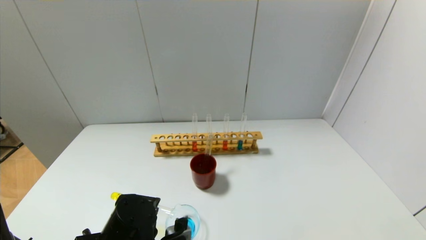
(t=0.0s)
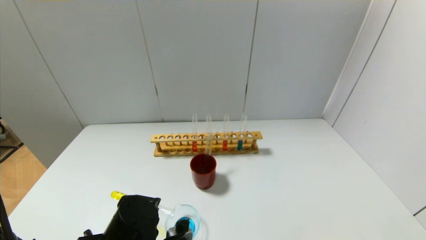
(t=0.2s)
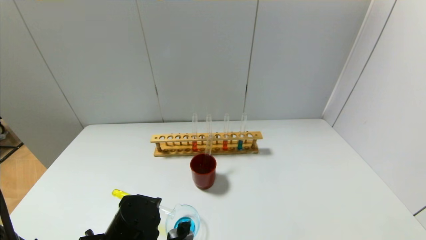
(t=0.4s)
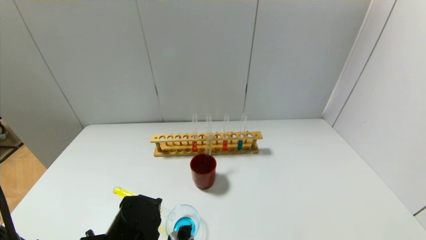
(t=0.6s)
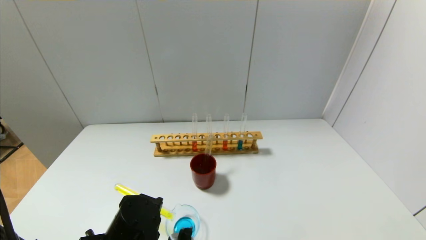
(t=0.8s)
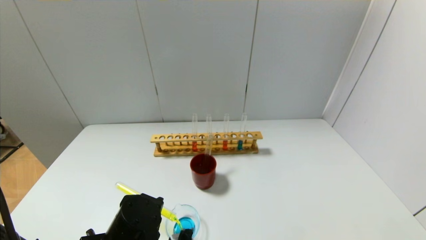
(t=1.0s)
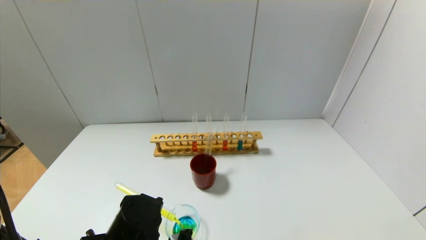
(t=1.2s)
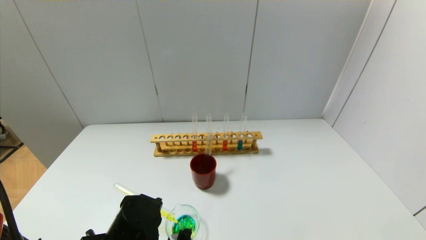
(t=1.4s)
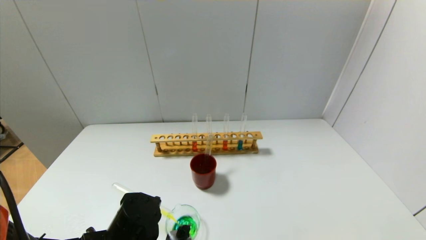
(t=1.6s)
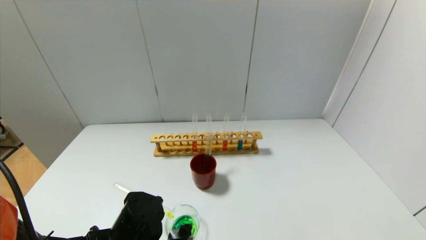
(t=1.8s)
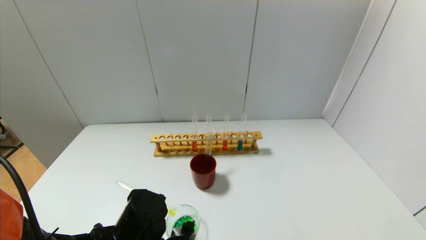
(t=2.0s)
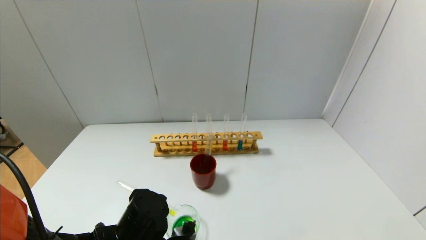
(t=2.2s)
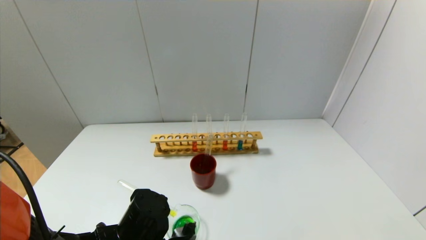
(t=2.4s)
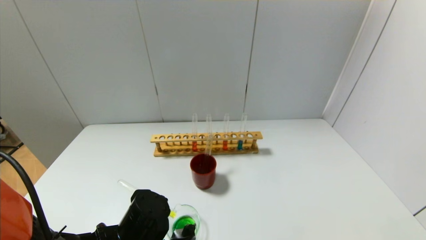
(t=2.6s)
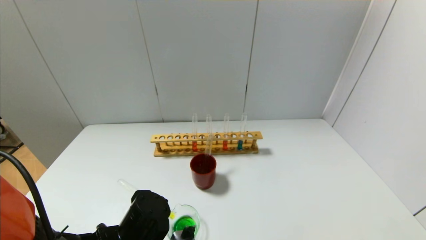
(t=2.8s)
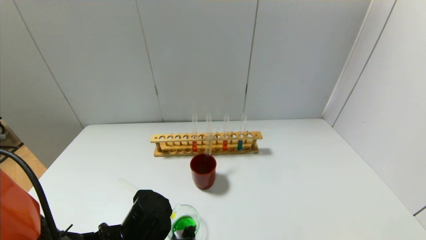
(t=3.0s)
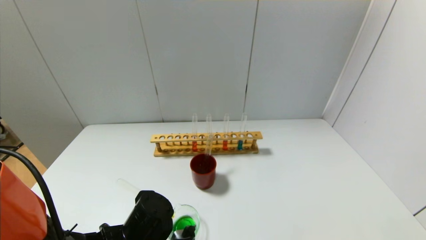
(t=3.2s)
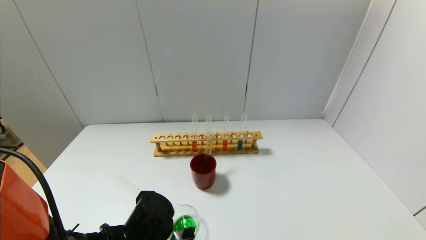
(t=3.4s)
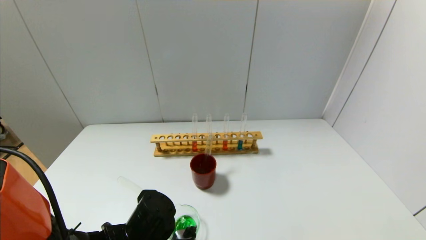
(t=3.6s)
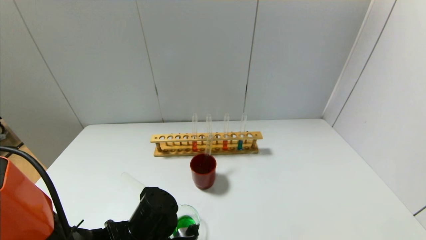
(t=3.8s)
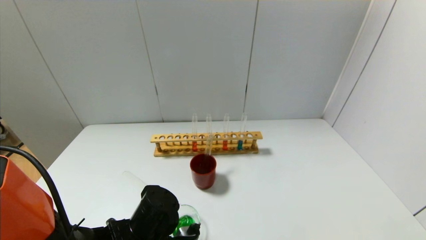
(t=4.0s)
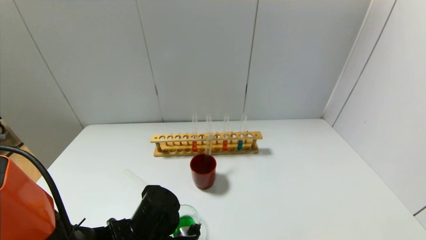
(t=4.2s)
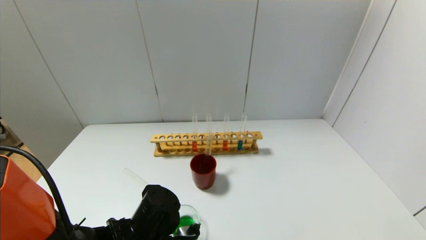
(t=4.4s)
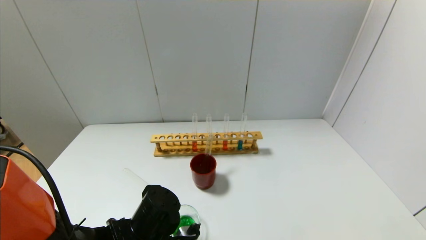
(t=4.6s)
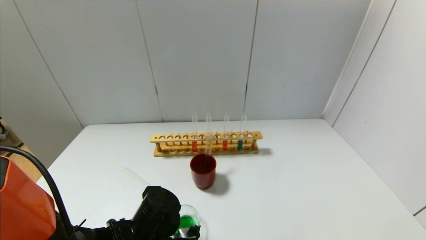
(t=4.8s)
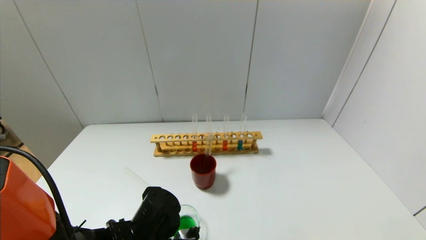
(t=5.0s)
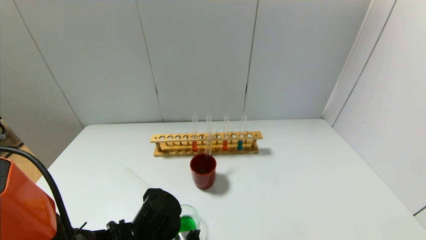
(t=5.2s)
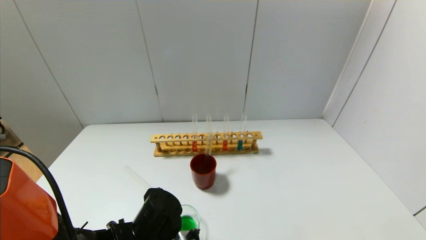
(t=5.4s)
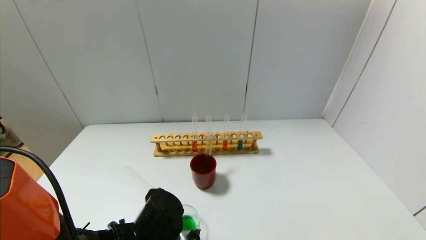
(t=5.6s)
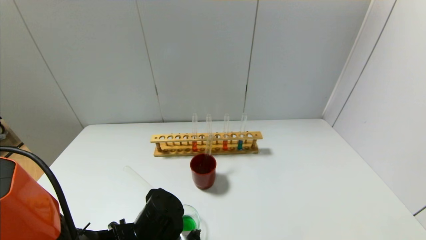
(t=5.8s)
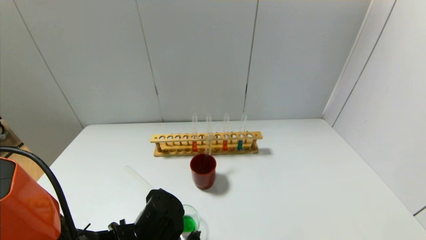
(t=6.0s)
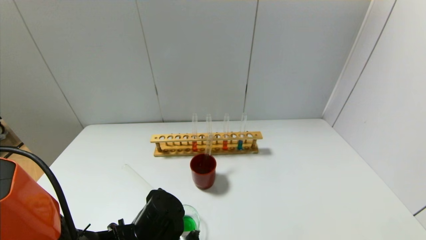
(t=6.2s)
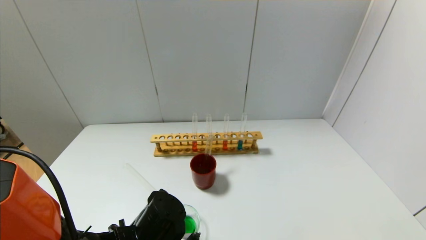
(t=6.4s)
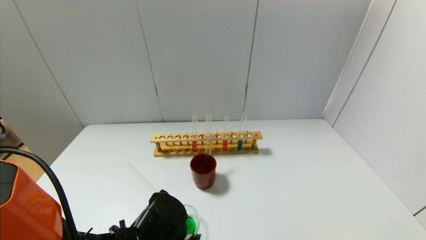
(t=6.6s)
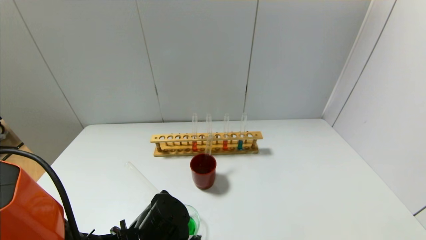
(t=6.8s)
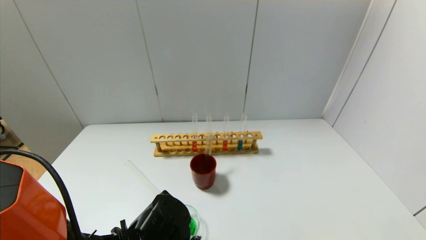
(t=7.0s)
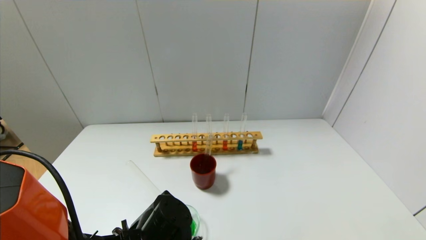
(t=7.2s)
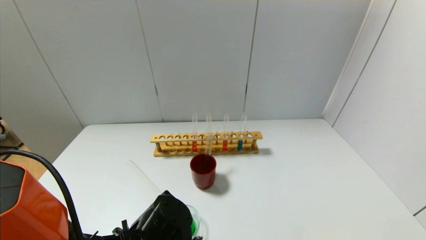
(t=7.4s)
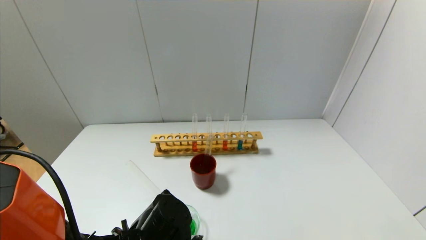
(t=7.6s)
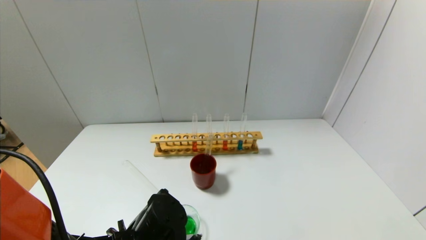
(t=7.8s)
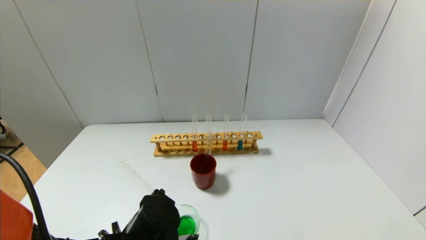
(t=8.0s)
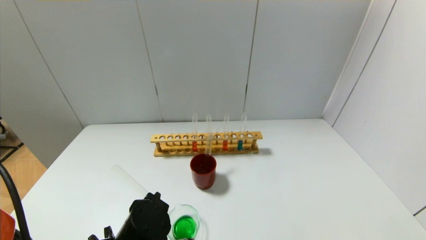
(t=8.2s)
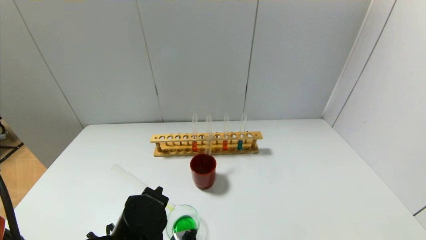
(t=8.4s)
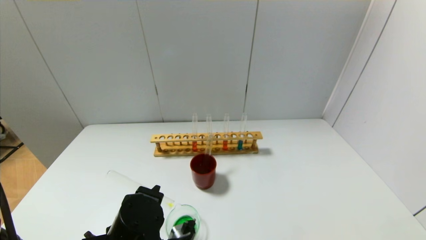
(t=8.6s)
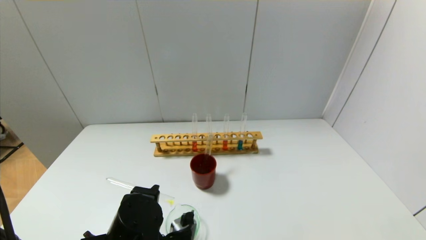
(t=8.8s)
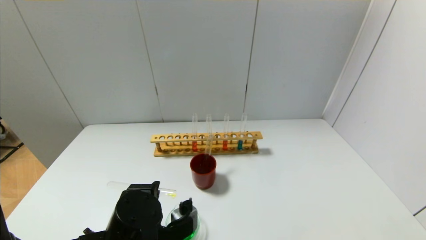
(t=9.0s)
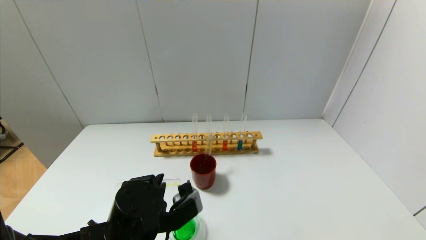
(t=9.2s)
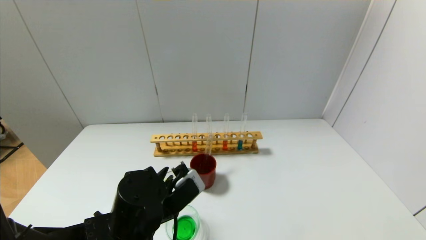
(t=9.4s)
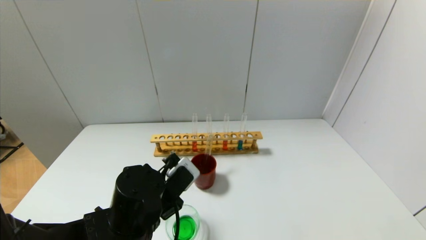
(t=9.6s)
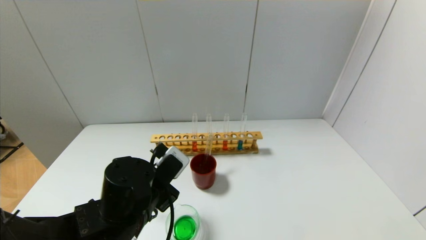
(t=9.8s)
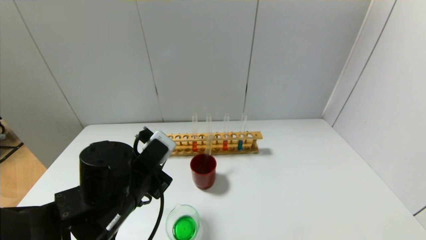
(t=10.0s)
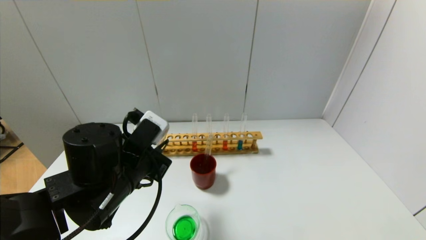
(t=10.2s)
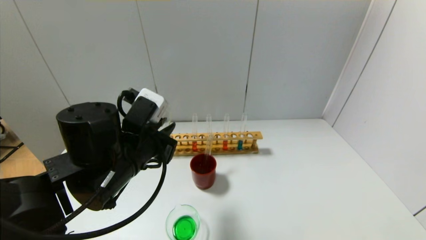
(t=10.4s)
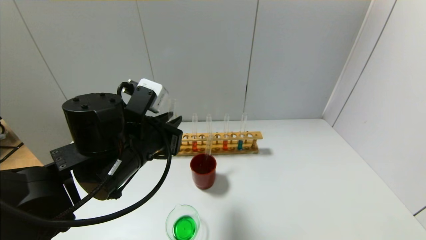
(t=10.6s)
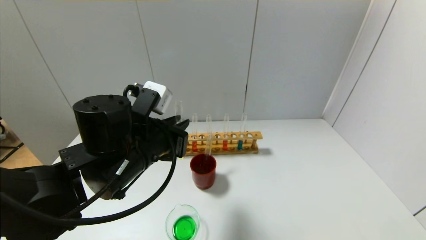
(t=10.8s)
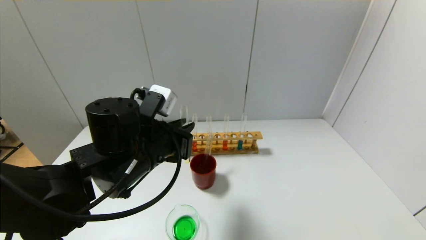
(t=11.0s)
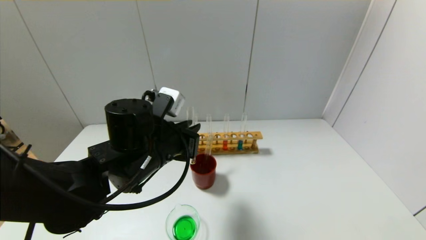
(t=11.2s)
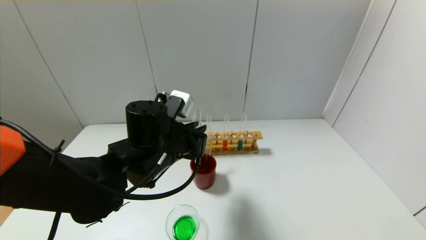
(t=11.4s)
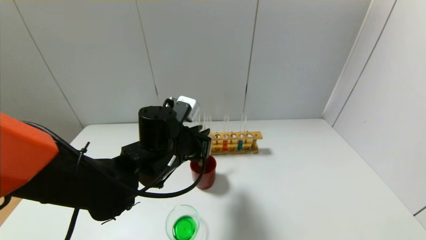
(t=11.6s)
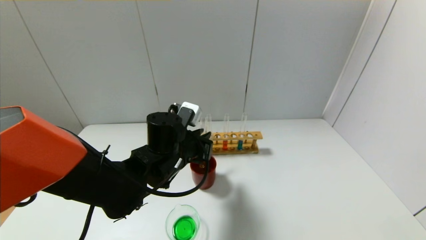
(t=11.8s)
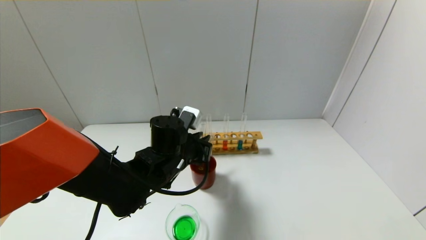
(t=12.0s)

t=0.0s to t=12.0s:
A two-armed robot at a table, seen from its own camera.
Step, t=0.0s to t=8.2s: Pour the yellow reagent into the graduated cylinder with the left gripper.
t=0.0s to t=3.0s: There are only small adjustments of the grippers.
t=3.0s to t=6.0s: There are only small adjustments of the grippers.
t=6.0s to t=7.6s: There are only small adjustments of the grippers.
t=9.0s to t=10.4s: The left gripper travels upward and forward by some 10 cm.
t=10.4s to t=12.0s: The left gripper moves forward, downward and to the right, some 10 cm.

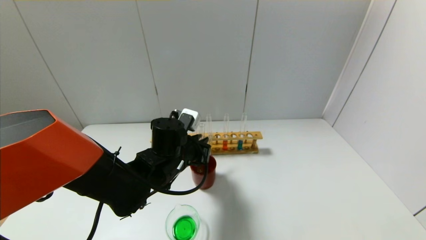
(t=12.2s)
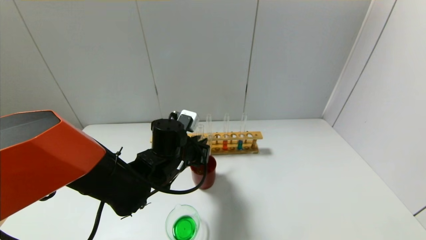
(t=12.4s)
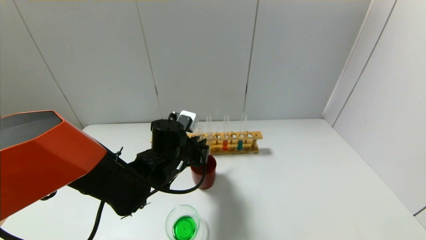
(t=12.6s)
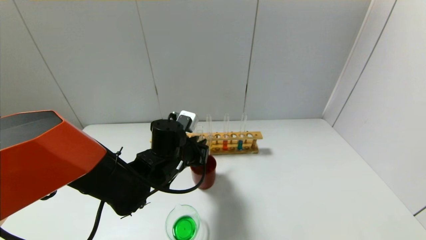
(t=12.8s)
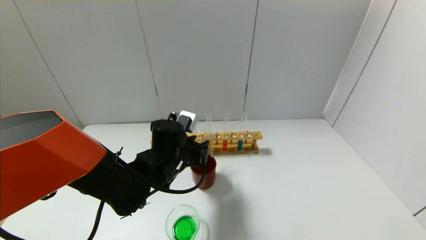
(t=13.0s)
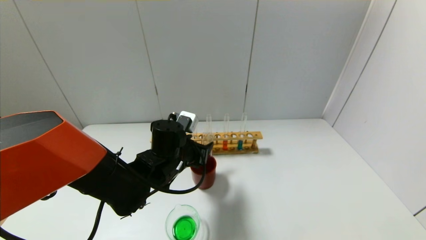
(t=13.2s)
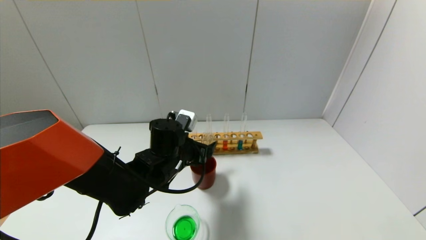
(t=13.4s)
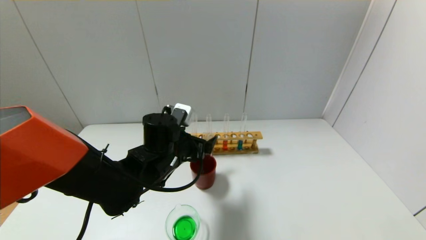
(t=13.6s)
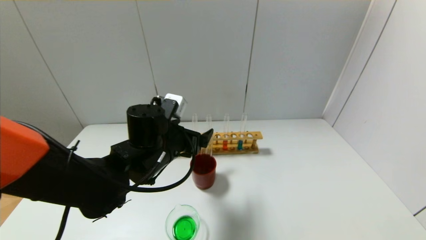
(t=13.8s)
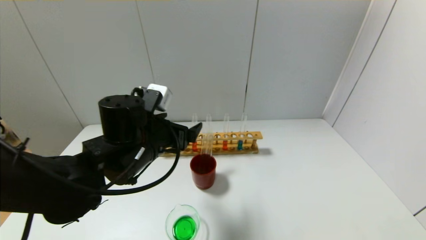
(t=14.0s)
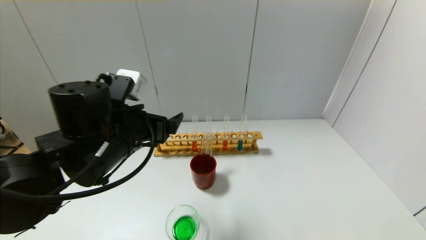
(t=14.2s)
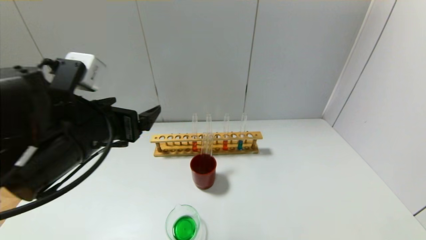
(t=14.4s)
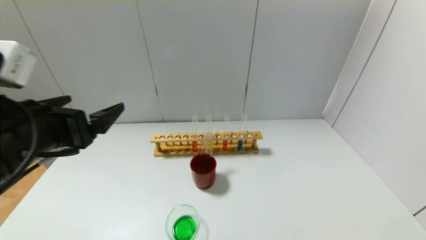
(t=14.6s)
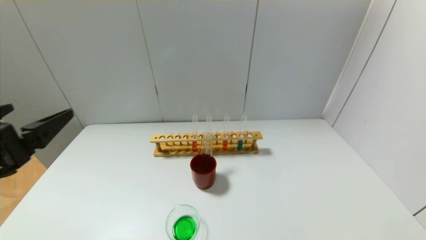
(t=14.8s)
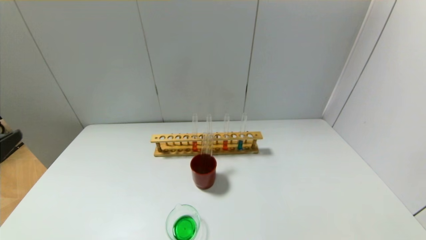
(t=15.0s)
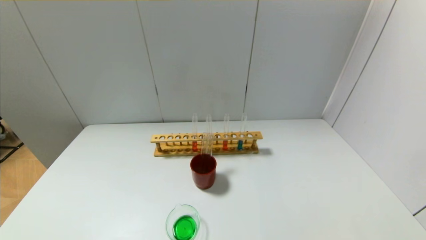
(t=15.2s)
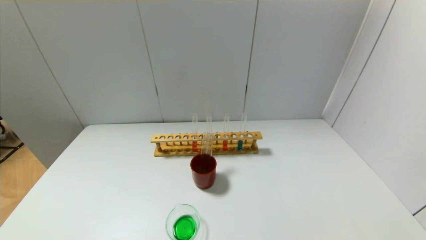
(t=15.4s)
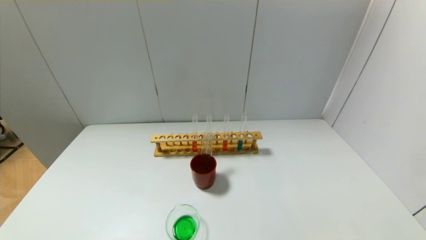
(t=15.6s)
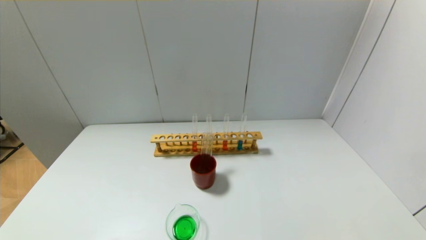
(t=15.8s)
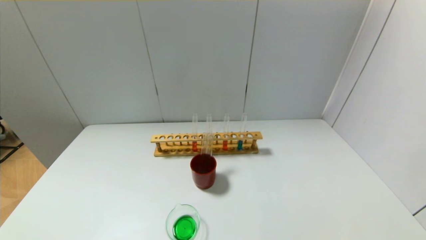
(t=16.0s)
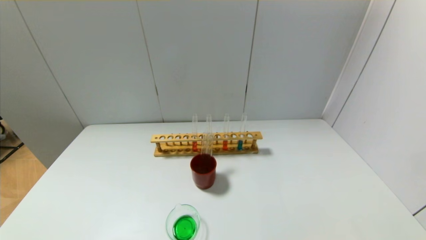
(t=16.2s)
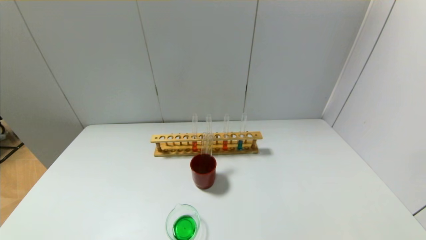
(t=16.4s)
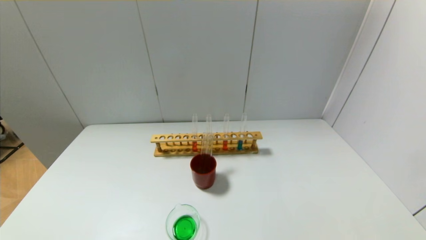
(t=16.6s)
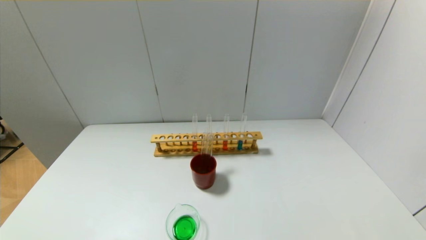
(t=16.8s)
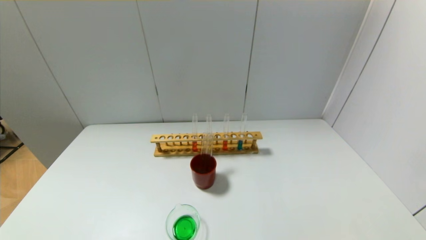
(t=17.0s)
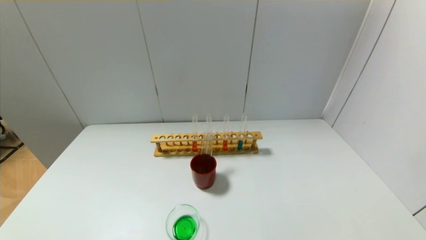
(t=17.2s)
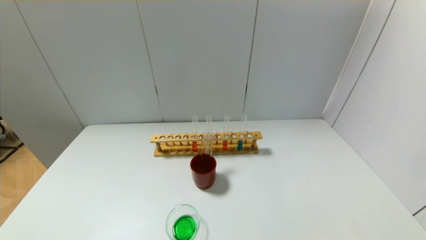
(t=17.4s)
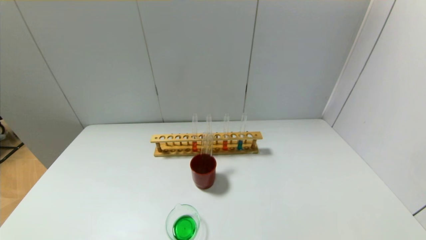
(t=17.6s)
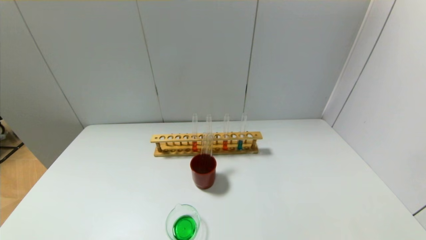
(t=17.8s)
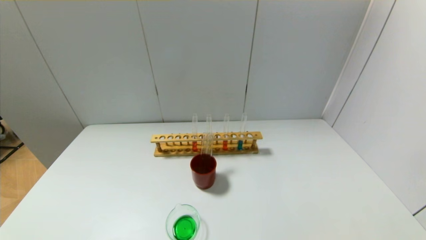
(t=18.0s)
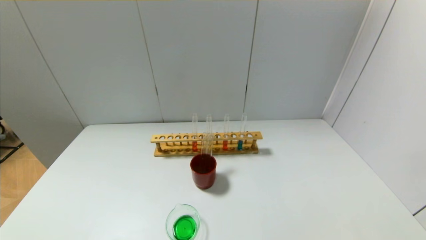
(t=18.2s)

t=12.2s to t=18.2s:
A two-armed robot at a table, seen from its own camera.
t=12.2s to t=13.8s: The left gripper changes place by some 5 cm, and opens its fingers.
t=13.8s to t=15.2s: The left gripper is displaced backward and to the left by approximately 35 cm.
